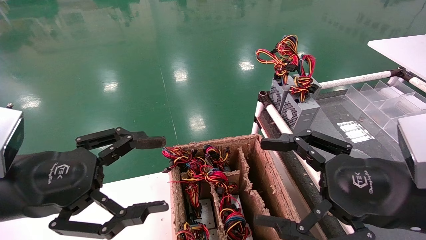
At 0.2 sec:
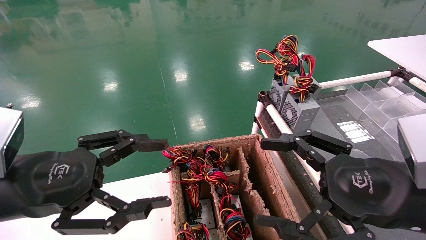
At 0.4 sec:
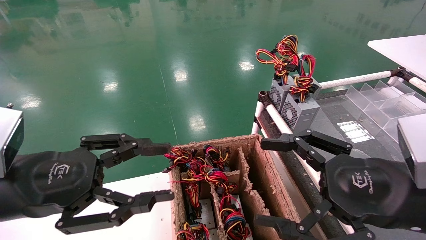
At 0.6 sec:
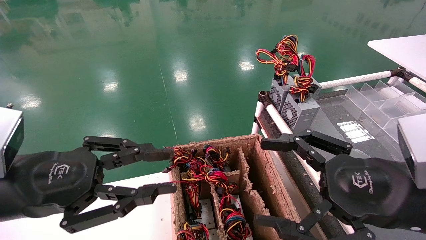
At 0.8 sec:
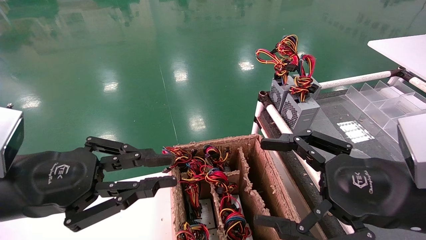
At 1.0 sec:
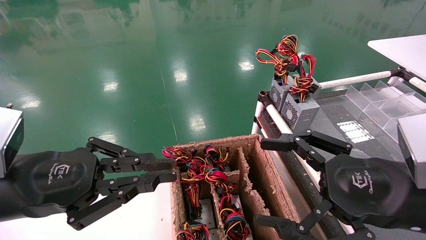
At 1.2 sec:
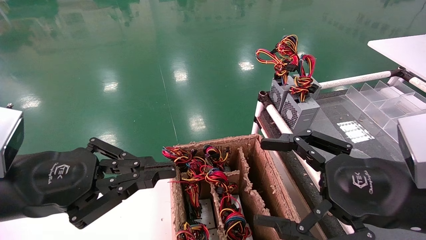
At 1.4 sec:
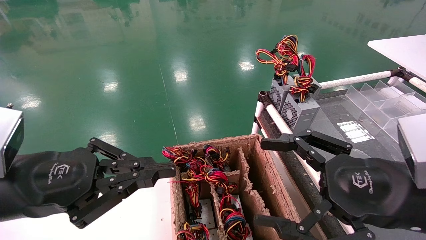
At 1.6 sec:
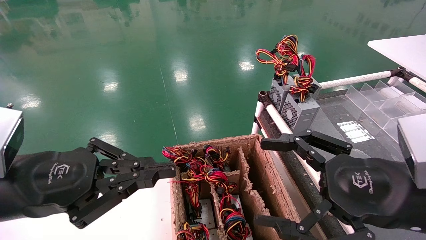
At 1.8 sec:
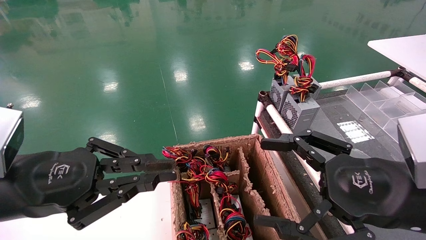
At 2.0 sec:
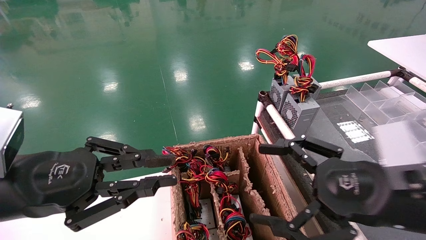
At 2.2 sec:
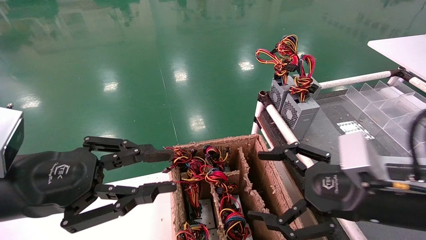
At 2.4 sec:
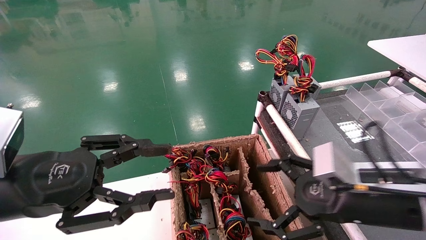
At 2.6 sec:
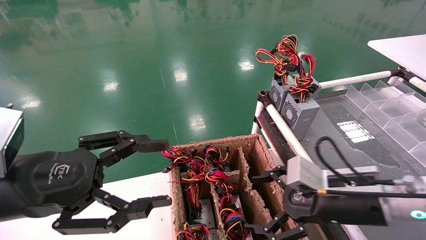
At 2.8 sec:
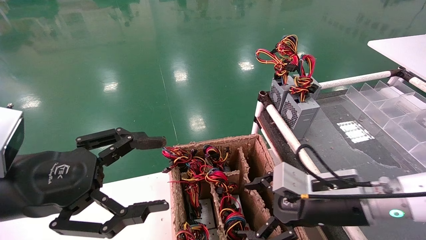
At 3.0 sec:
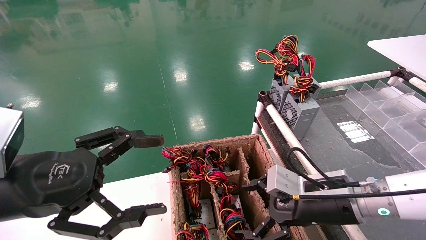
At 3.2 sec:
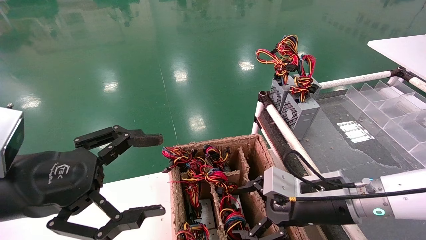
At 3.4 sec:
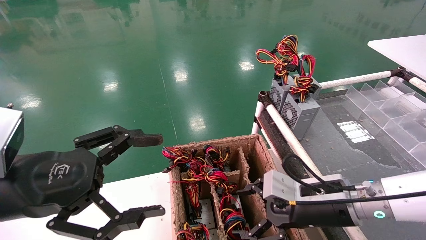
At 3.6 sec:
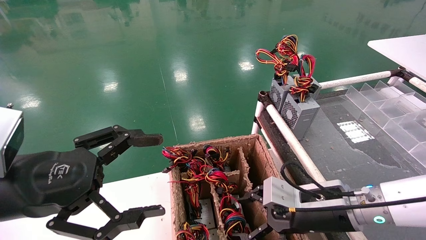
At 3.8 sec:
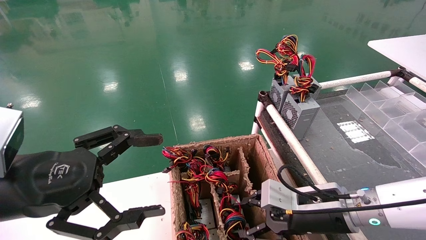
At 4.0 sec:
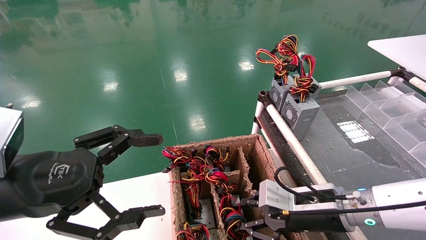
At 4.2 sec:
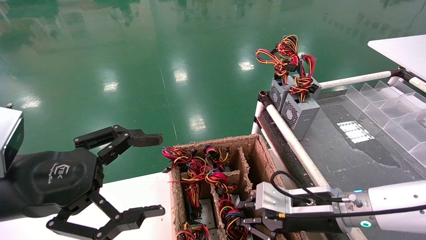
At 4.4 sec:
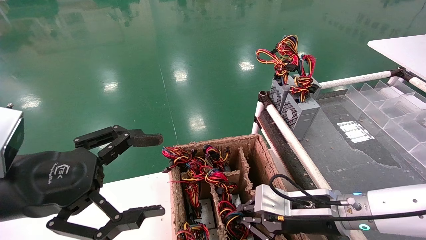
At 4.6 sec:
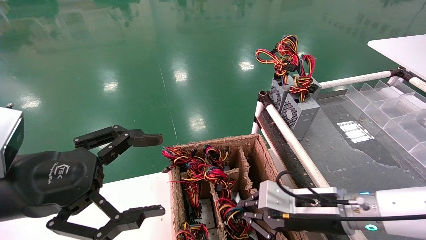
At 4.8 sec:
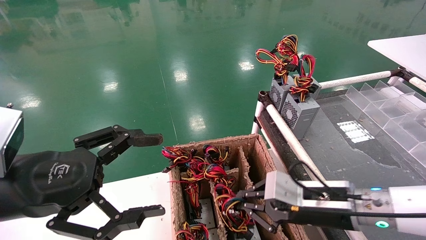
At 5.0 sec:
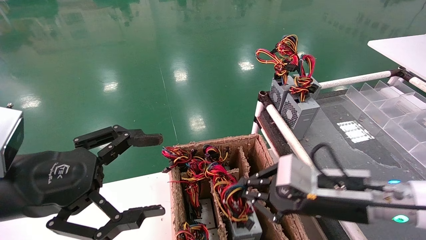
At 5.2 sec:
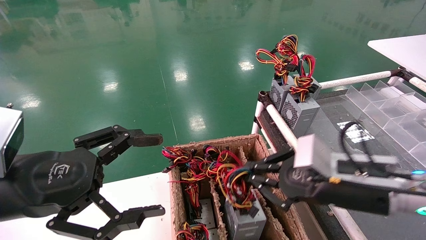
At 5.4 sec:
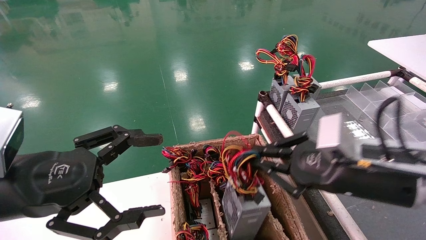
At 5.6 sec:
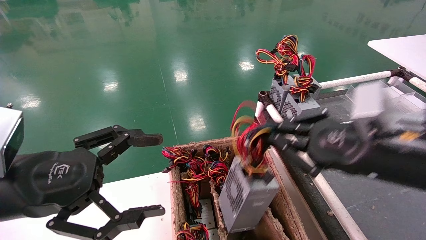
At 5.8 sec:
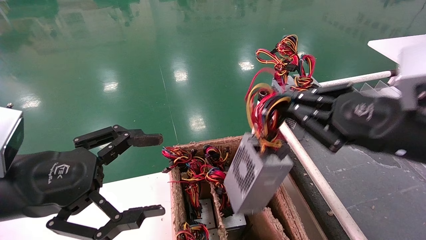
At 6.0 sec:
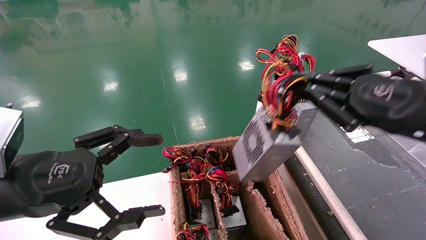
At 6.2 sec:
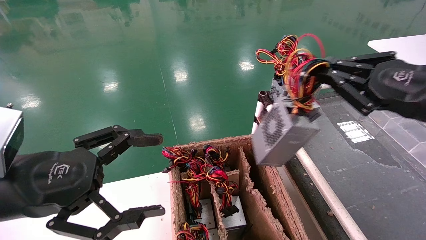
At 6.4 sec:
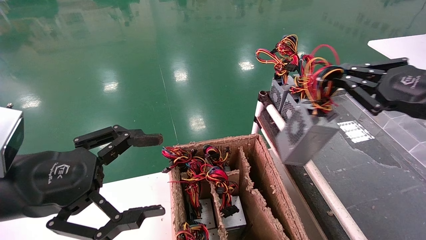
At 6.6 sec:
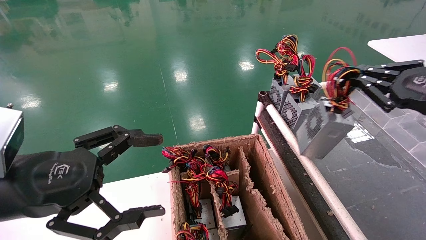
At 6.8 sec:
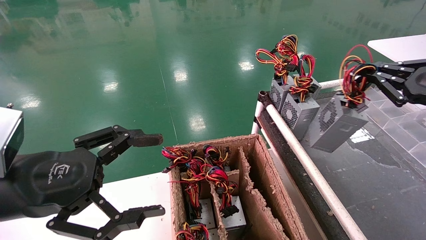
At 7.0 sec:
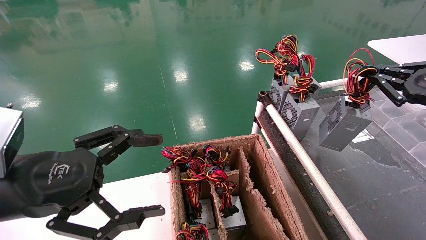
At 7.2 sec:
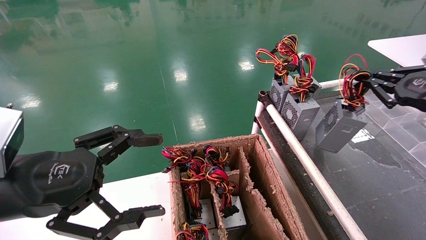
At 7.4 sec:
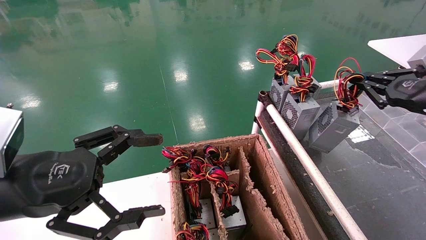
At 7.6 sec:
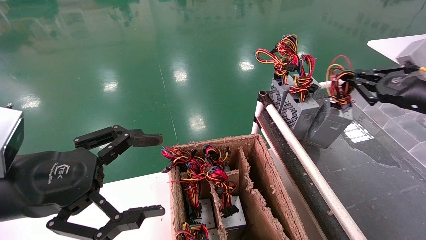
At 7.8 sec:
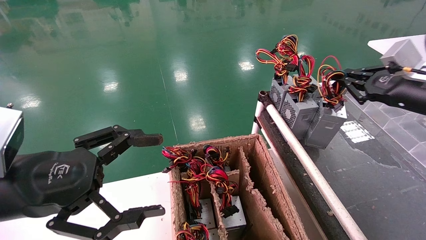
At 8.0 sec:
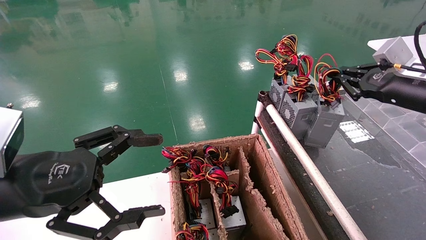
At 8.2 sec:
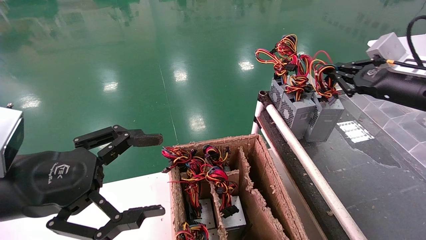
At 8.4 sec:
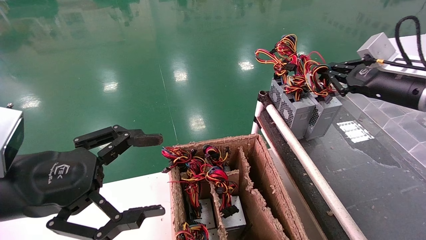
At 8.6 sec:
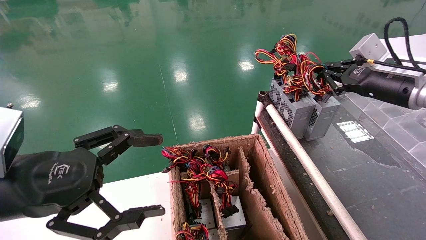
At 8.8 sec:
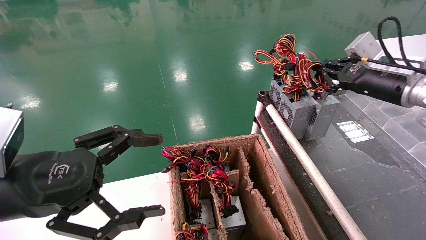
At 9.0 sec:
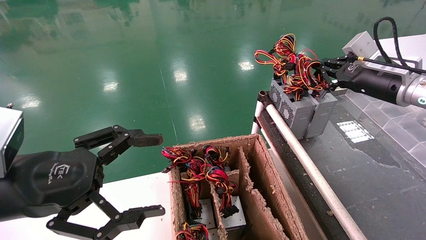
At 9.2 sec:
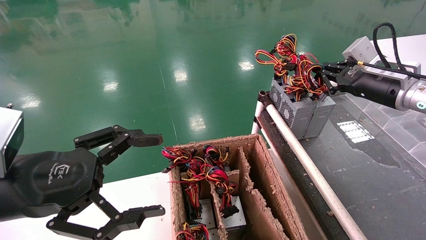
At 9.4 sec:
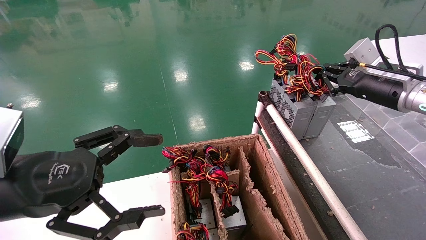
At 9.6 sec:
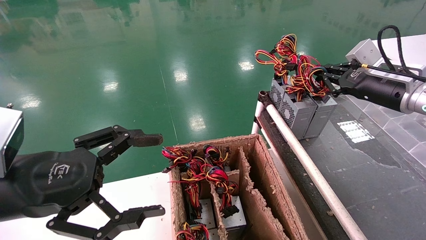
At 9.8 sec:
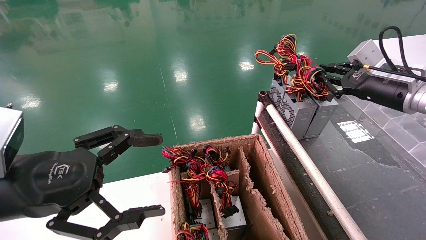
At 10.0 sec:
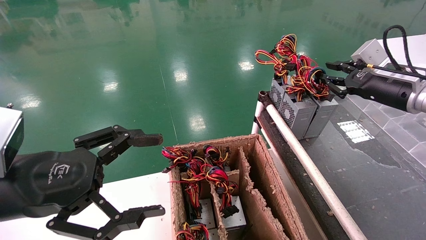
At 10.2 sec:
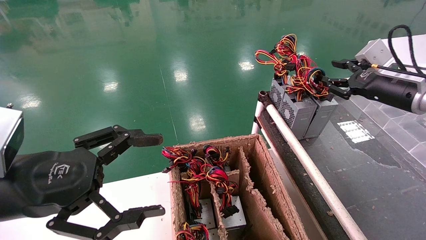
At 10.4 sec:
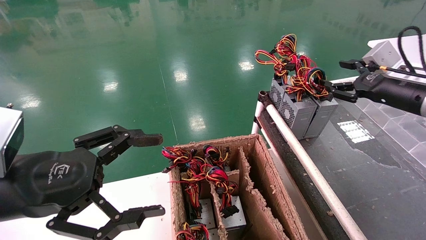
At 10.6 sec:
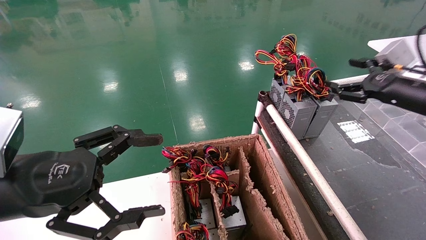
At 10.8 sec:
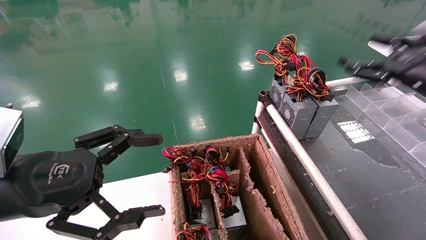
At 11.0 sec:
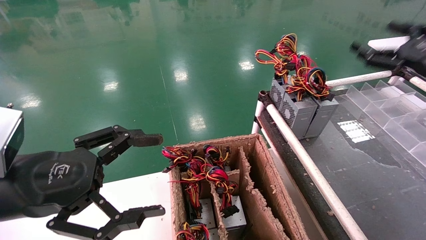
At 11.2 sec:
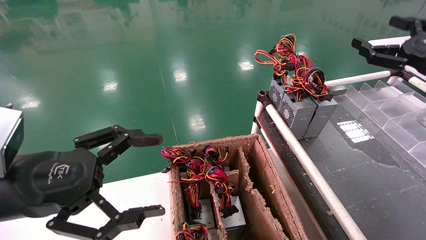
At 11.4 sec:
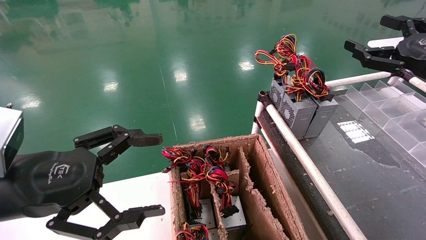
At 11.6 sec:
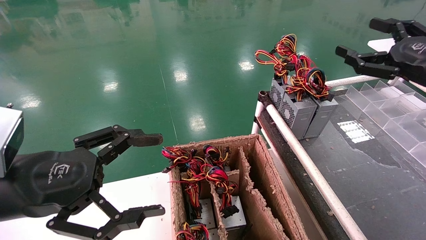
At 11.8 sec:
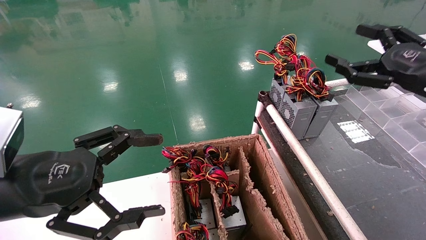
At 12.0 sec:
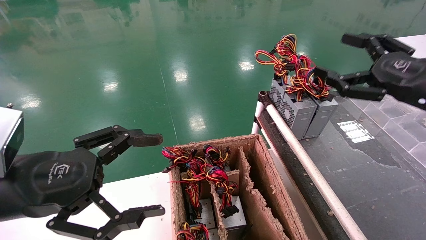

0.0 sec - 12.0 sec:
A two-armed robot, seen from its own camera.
Step, 1.4 sec - 4.4 sec: Grab and lift the power supply from the large box.
Step, 4.6 sec - 9.4 sec: Place the power supply on the operating table.
0.0 sec - 1.6 sec: The left gripper closes up.
1.6 sec - 3.0 sec: The right gripper is displaced forward and downward by roughly 15 cm. Meanwhile the left gripper opens its fingers.
3.0 sec - 4.4 sec: The right gripper closes its fingers.
4.4 sec - 6.0 sec: The right gripper moves upward and to the right, approximately 20 cm.
6.0 sec - 7.6 sec: The right gripper is displaced forward and to the right by roughly 15 cm.
7.6 sec - 9.0 sec: The right gripper shifts about 10 cm forward and to the left.
9.0 sec - 10.4 sec: The right gripper opens up.
10.4 sec - 12.0 sec: The right gripper heads backward, covering some 10 cm, and opens up.
